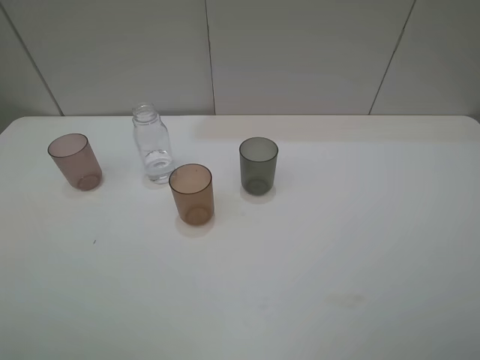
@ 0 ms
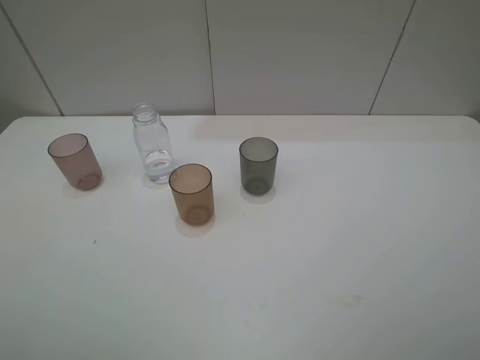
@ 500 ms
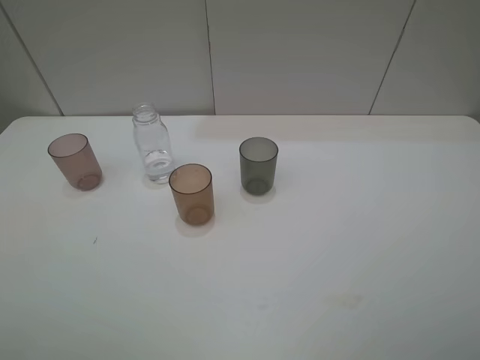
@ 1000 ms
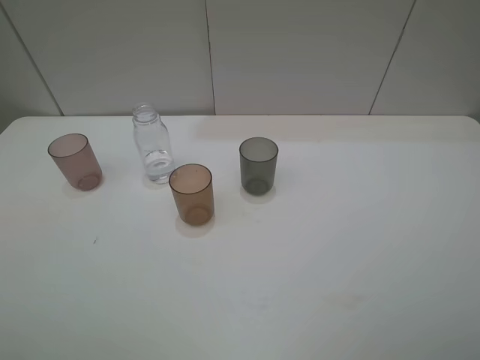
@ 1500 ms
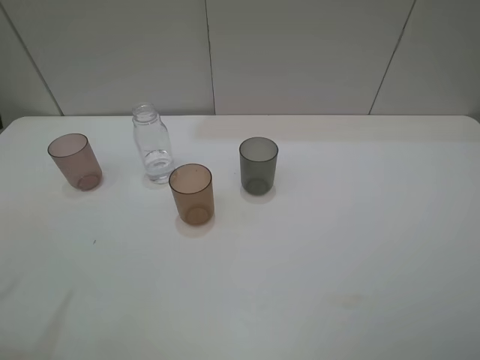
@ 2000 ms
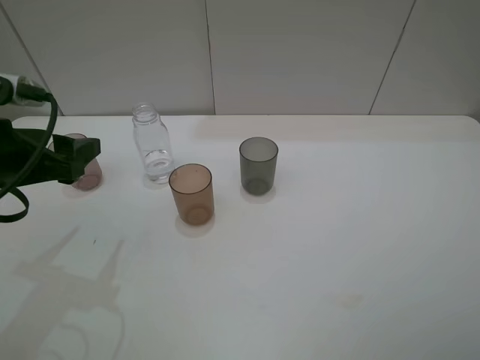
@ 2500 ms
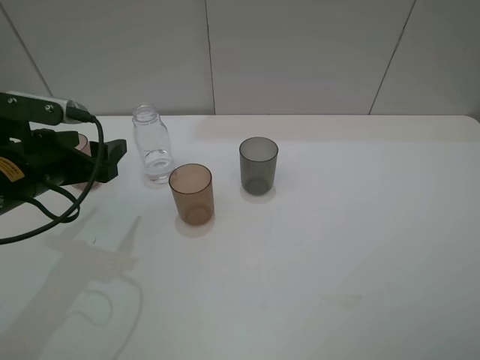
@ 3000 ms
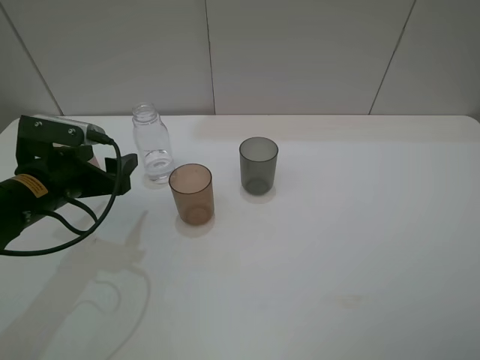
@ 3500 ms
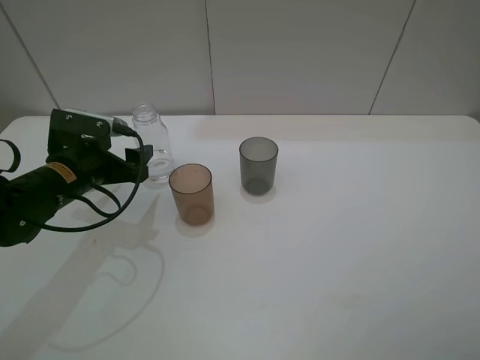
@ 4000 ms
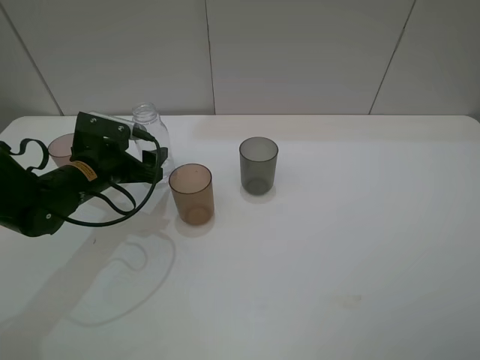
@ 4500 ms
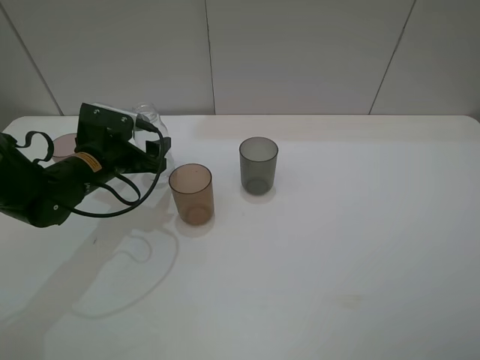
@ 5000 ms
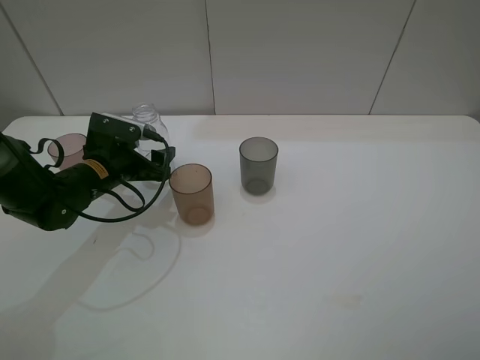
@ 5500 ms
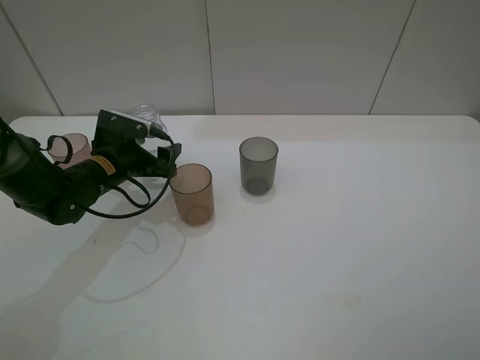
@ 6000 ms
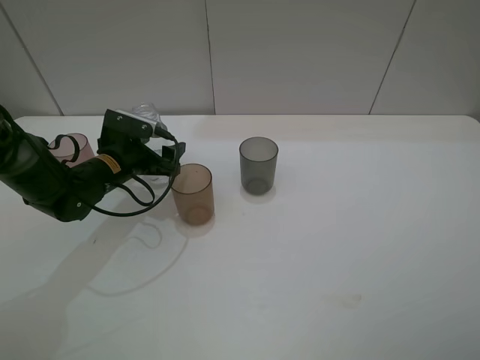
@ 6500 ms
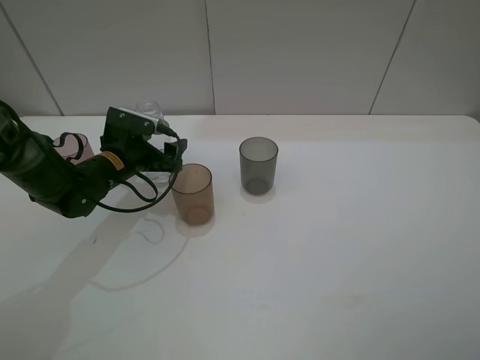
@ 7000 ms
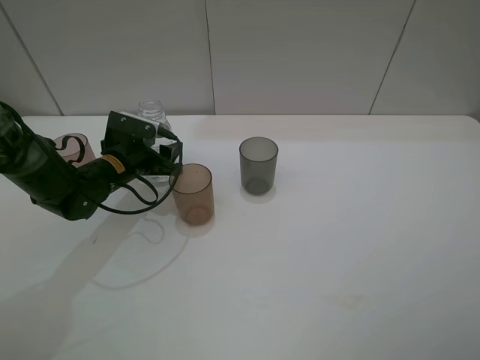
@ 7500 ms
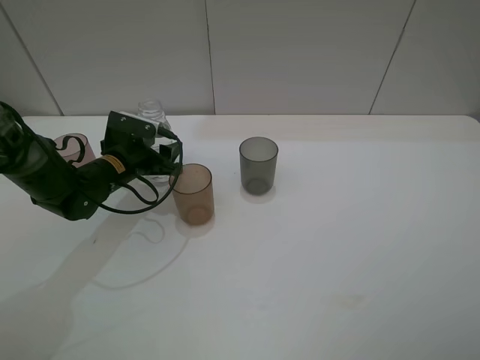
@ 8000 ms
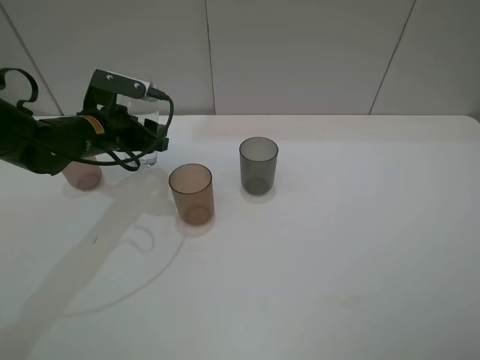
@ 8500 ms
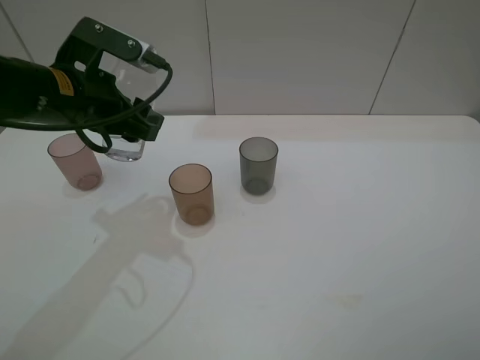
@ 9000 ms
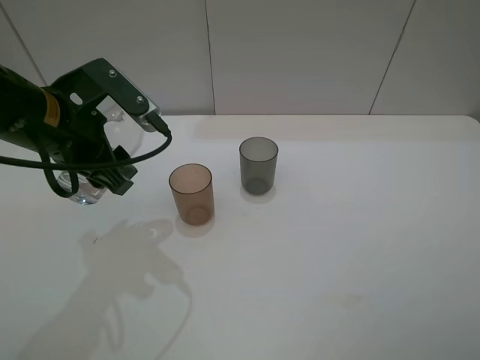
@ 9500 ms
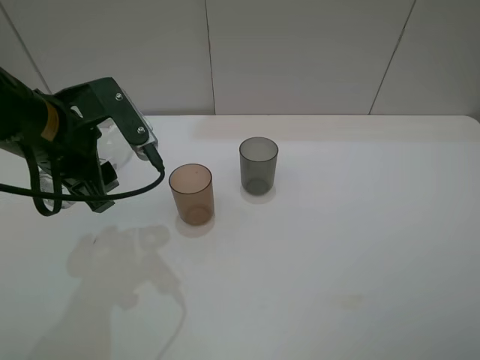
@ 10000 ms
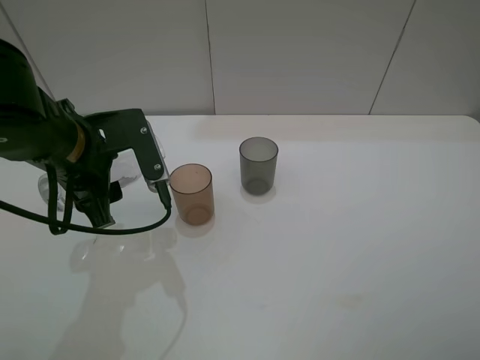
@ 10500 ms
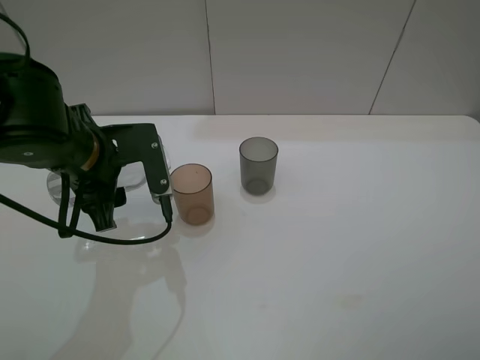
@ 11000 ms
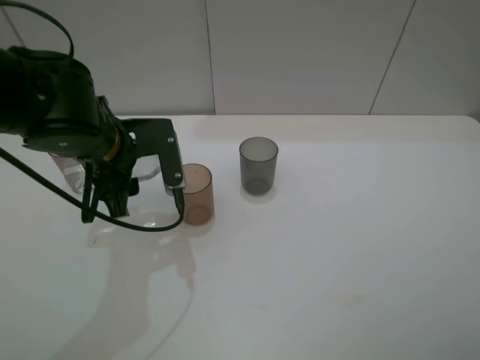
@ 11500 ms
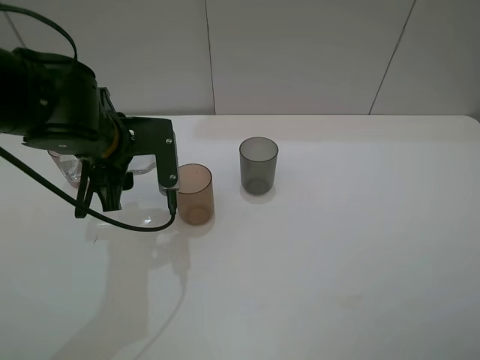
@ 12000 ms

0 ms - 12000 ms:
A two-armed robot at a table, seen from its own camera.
Task of the whole recording: pick up the bottle filled with water and pour water into the middle cup of the three cups.
Step, 0 ms - 8000 ms: Grasp the transparent bottle with the left gripper.
2000 ms - 4000 ms: The left gripper travels downward and forward by about 25 cm.
4000 ms - 6000 ms: The left gripper ends up some 5 cm from where it was.
6000 ms - 8000 ms: The left gripper closes its fingers.
8000 ms - 10000 ms: The left gripper is displaced upward and backward by about 20 cm.
10000 ms - 12000 ms: The left gripper shifts by approximately 5 cm.

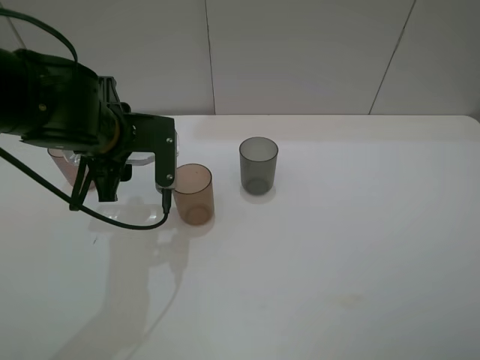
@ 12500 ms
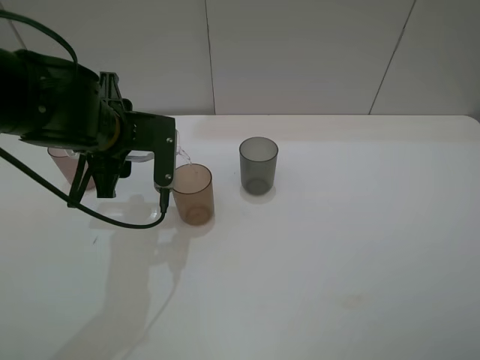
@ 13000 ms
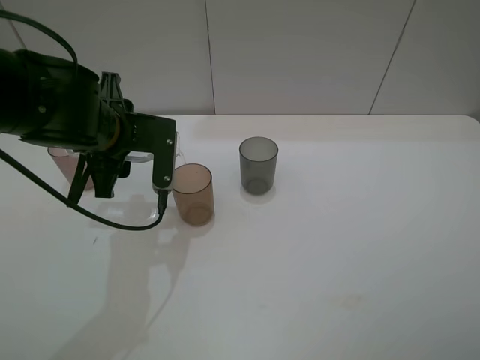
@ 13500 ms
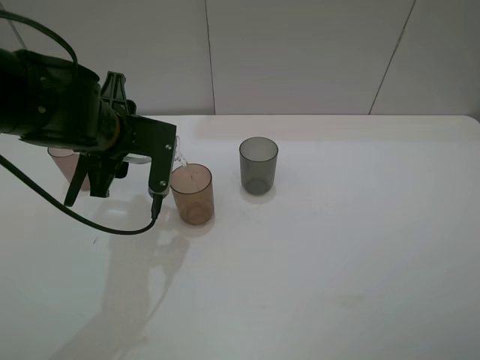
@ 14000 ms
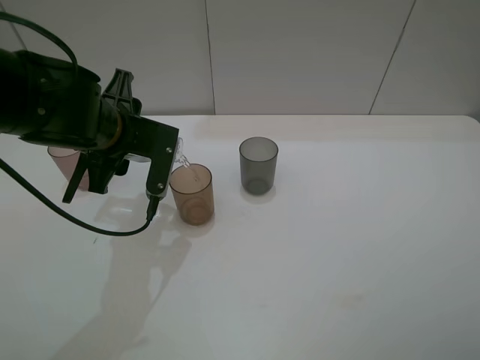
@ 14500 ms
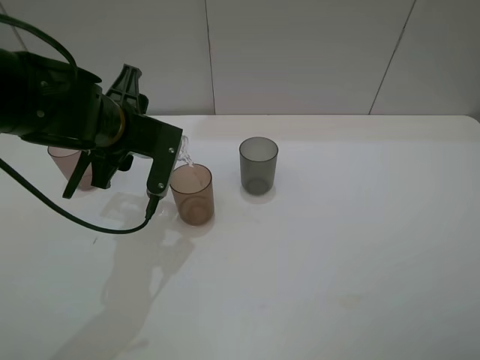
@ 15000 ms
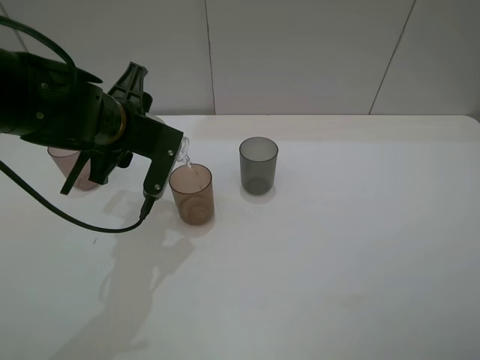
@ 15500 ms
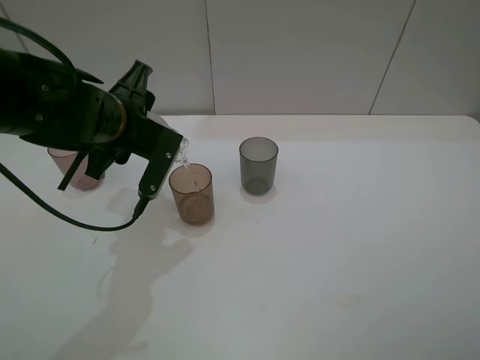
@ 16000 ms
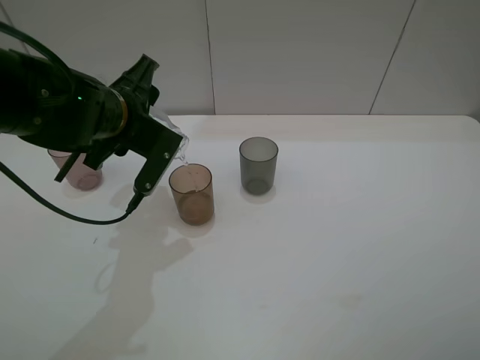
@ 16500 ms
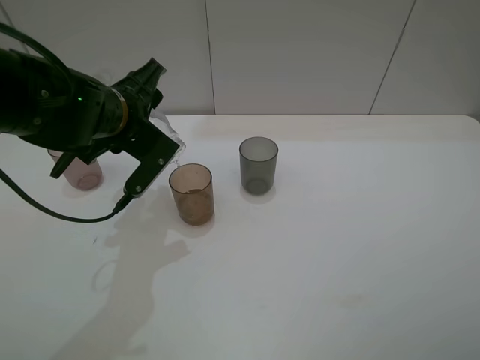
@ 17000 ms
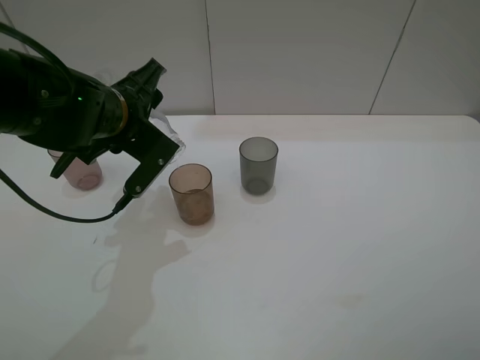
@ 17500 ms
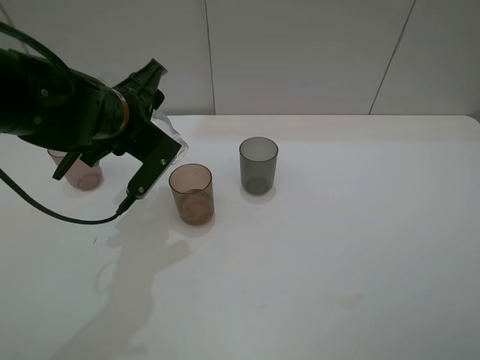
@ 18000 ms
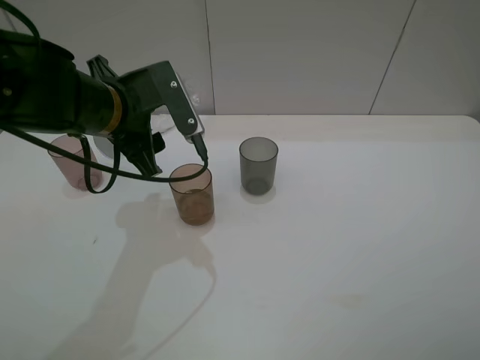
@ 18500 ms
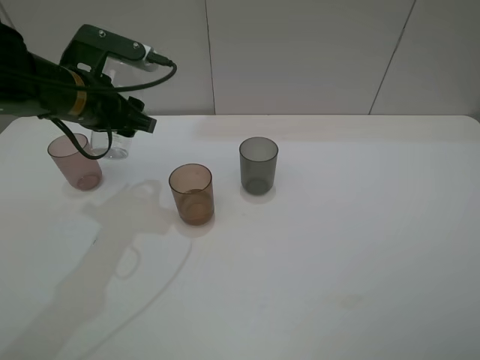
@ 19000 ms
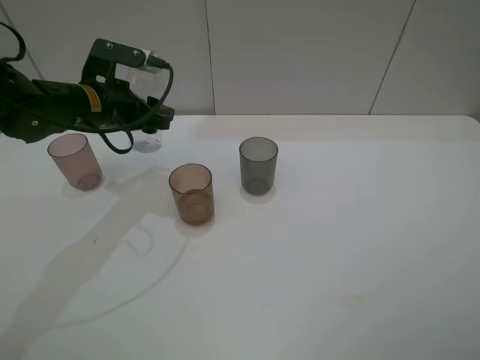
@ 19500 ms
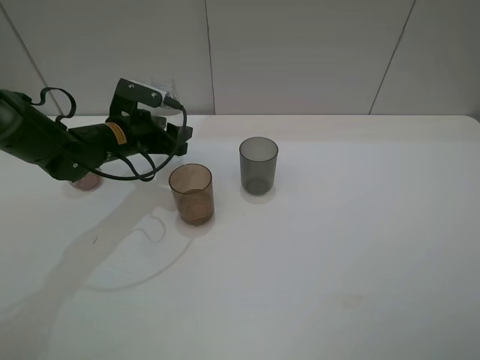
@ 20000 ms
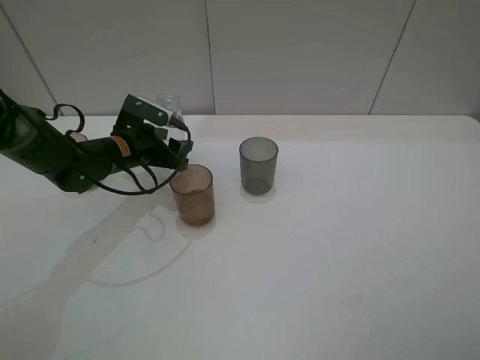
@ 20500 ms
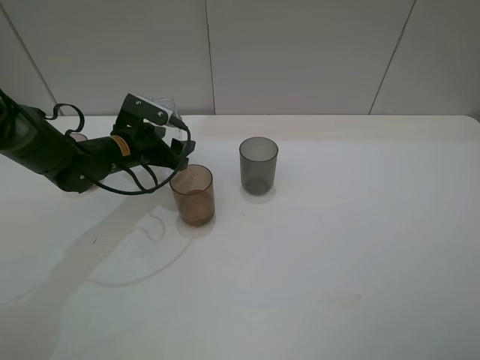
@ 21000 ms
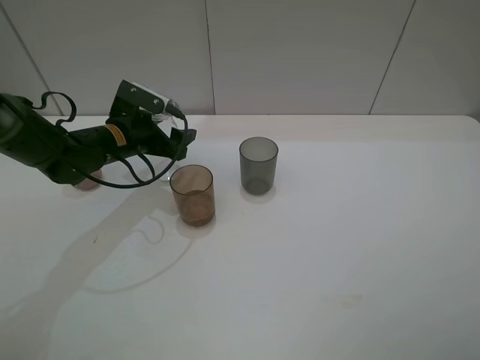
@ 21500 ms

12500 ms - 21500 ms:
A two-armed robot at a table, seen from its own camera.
Task of the whole recording: pick up the bottle filled with water and pour water into the middle cup of the three cups.
Step, 12500 ms - 18000 ms: Pour water from transparent bottle to brown cup with the left gripper.
12500 ms - 14500 ms: There are only small adjustments of the grippers.
17000 ms - 19500 ms: The left gripper travels forward and to the left by roughly 10 cm.
19500 ms - 21500 ms: The left gripper shifts some 5 cm downward, and opens up.

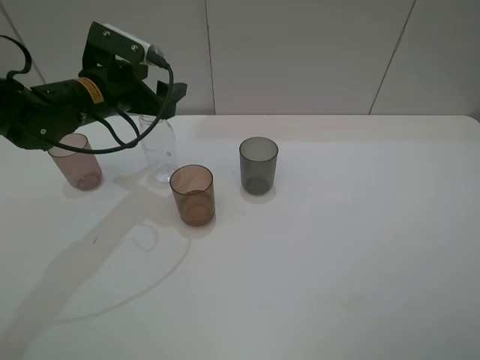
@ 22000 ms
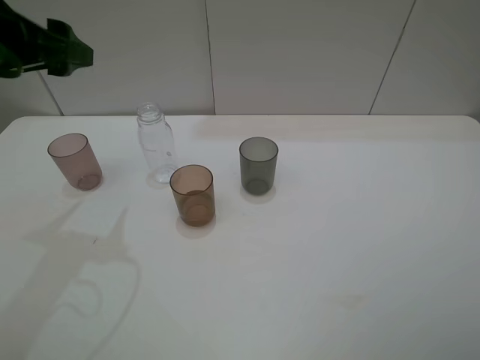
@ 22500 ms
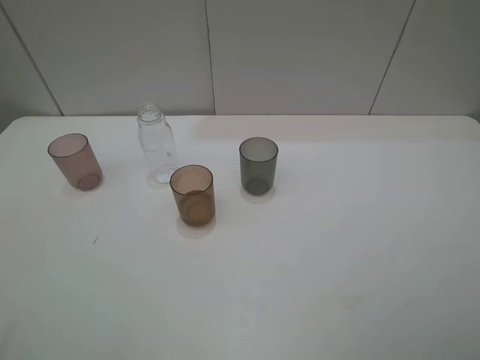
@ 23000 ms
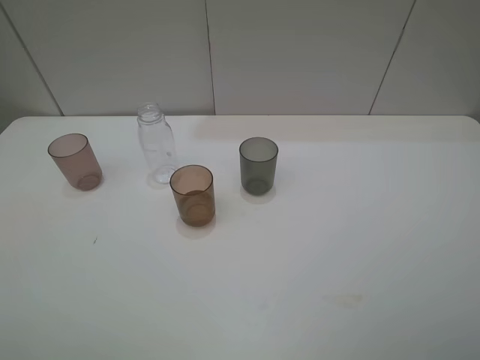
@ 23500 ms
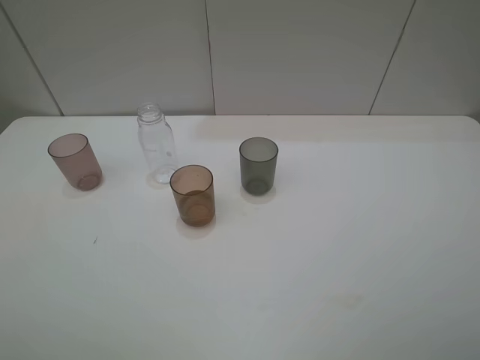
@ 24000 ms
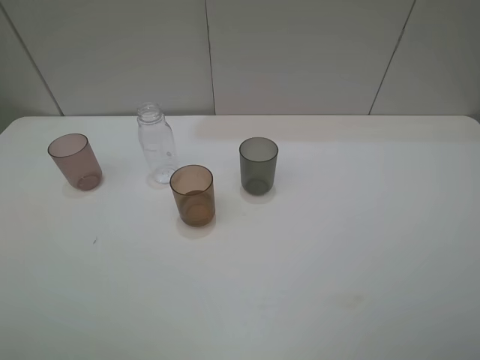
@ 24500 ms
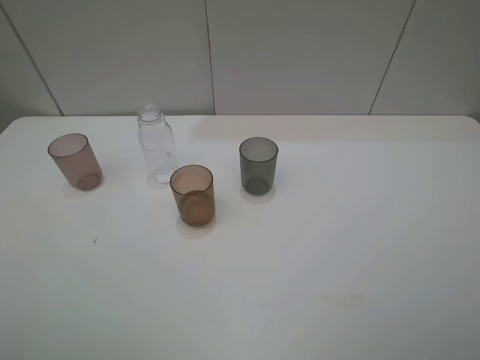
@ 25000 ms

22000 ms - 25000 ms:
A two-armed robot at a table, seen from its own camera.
Task of the whole recording: pick up the bottle filled with water and pour water into the middle cup of the three cups.
22000 ms - 23500 ms: The left gripper shifts approximately 40 cm backward and upward.

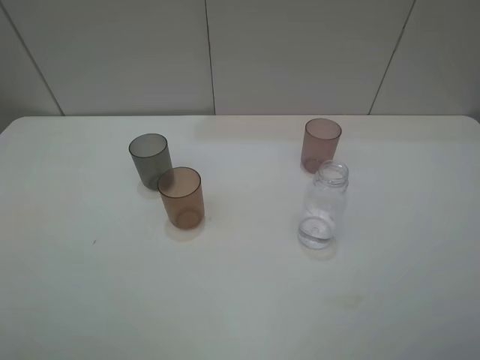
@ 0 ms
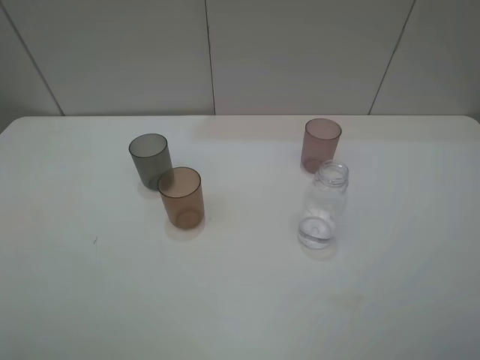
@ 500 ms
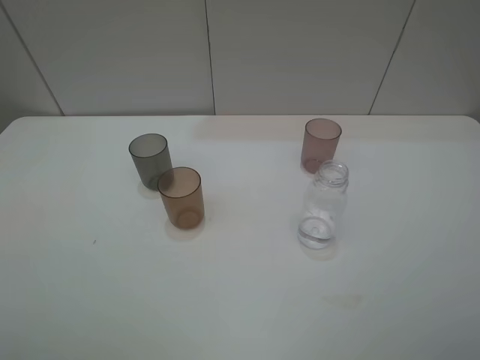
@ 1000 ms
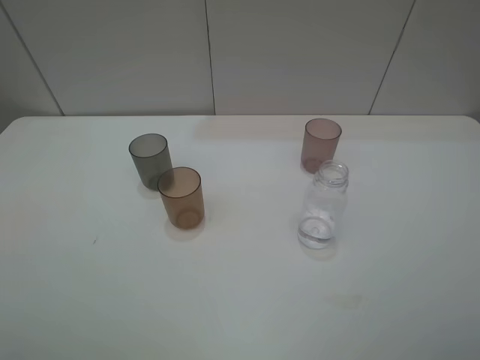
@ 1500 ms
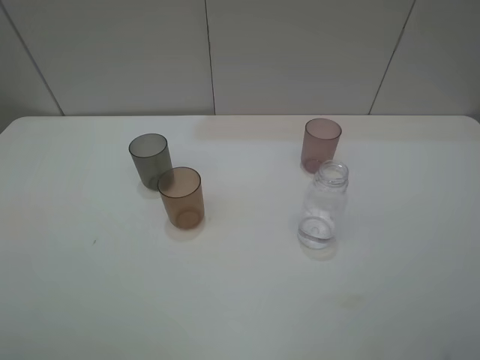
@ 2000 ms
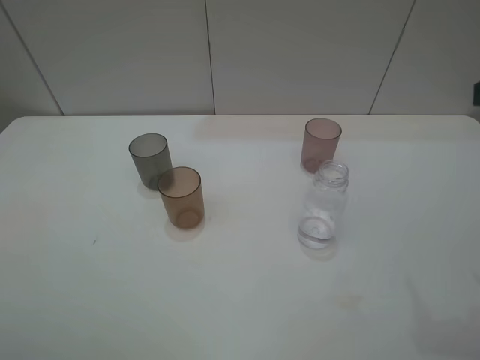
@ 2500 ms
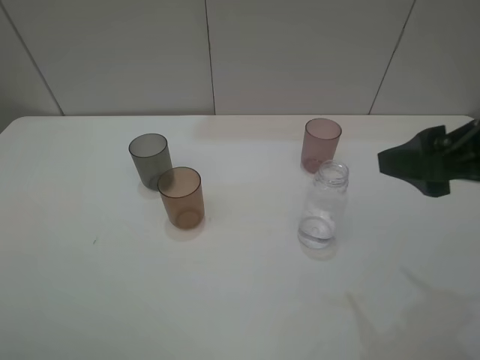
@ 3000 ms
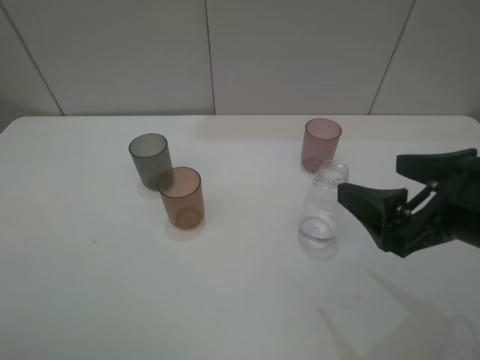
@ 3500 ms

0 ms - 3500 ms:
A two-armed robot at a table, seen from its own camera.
Task of the whole recording: pick up the bottle filled with water and pour water into the middle cup of the three cups.
2000 ms - 3500 ms: The right gripper heads downward, to the left and forward, covering approximately 15 cm.
